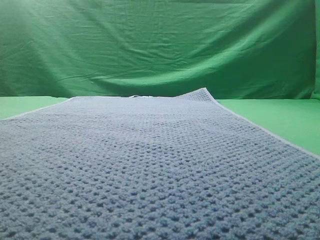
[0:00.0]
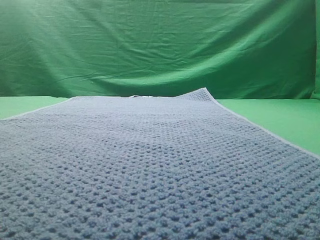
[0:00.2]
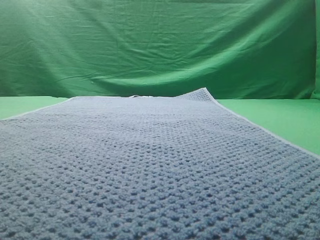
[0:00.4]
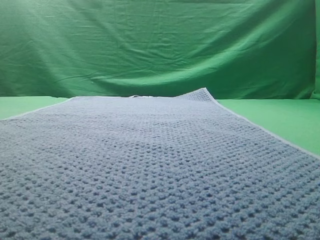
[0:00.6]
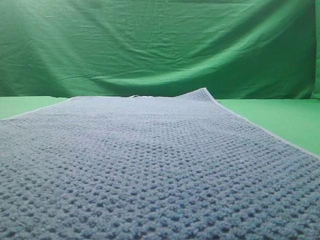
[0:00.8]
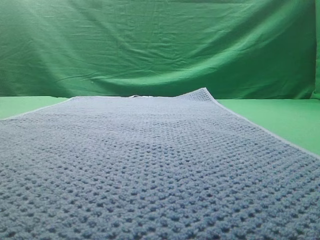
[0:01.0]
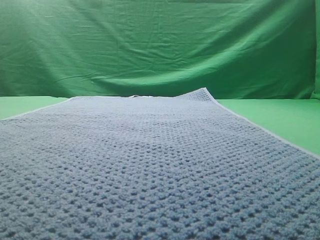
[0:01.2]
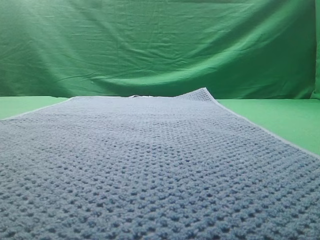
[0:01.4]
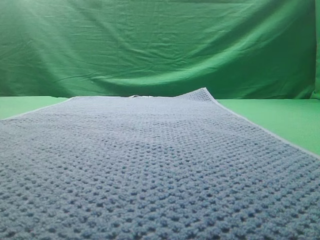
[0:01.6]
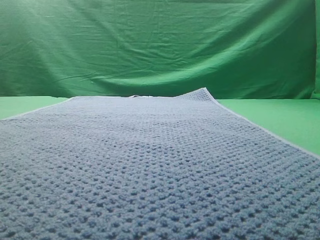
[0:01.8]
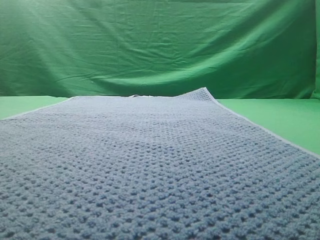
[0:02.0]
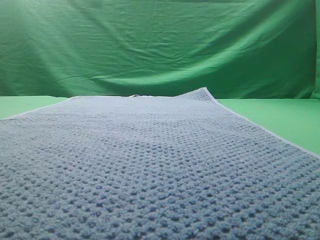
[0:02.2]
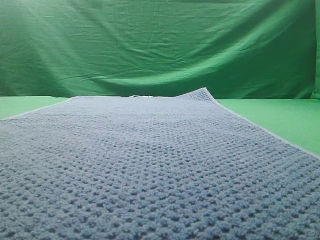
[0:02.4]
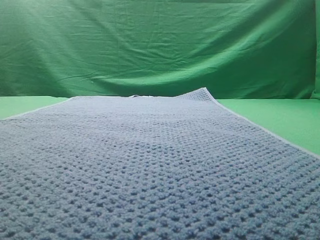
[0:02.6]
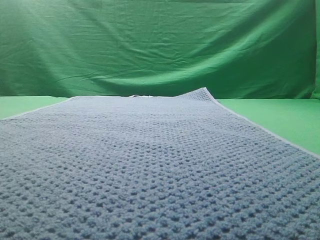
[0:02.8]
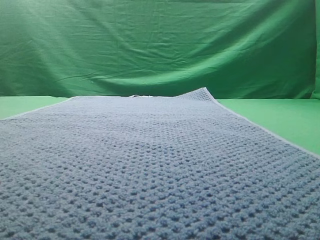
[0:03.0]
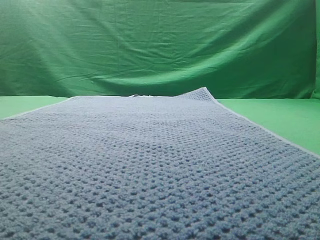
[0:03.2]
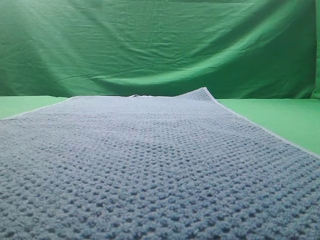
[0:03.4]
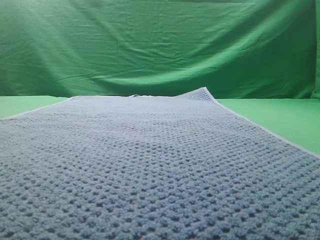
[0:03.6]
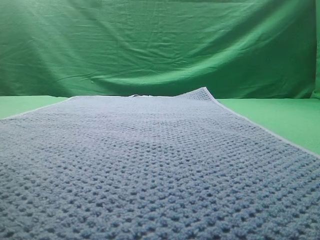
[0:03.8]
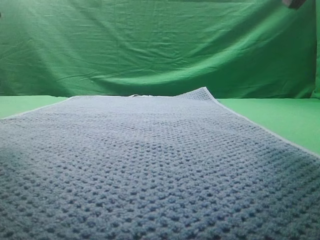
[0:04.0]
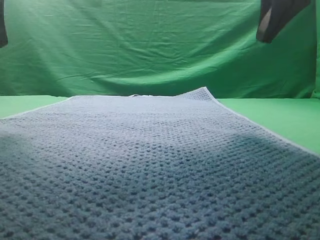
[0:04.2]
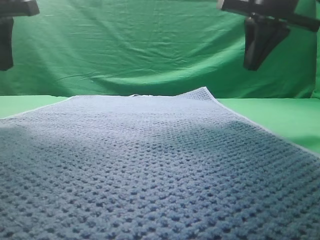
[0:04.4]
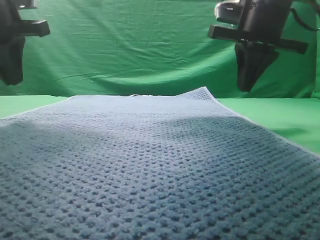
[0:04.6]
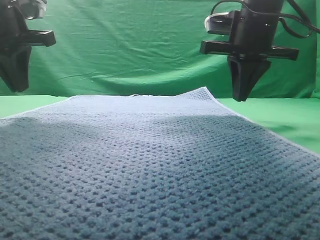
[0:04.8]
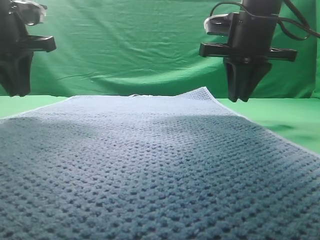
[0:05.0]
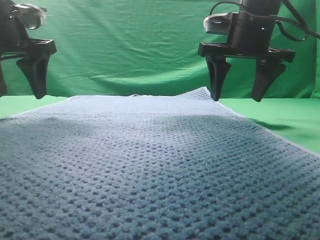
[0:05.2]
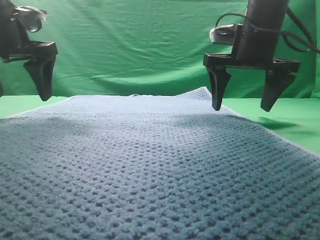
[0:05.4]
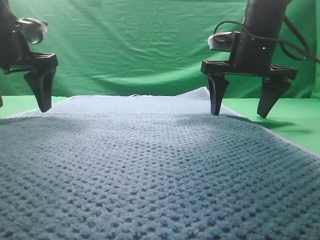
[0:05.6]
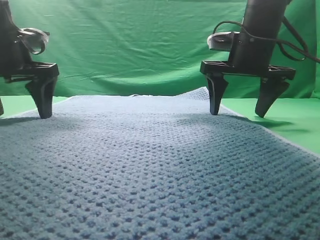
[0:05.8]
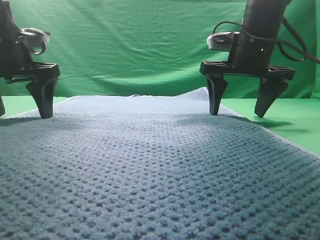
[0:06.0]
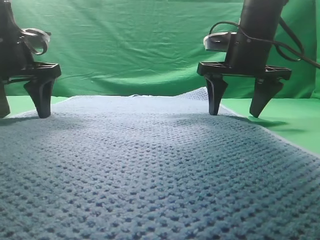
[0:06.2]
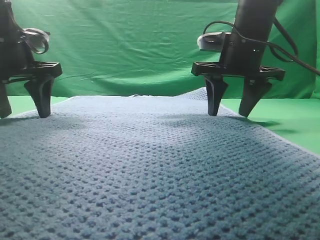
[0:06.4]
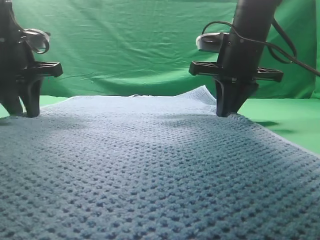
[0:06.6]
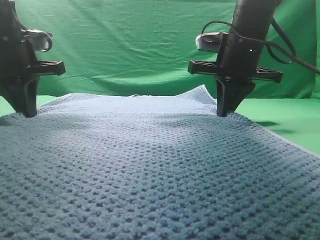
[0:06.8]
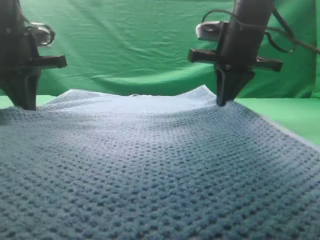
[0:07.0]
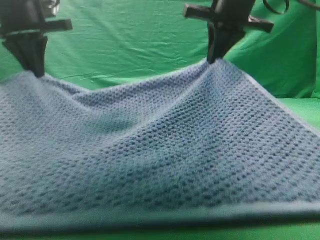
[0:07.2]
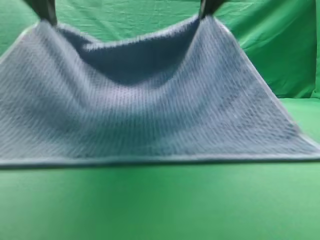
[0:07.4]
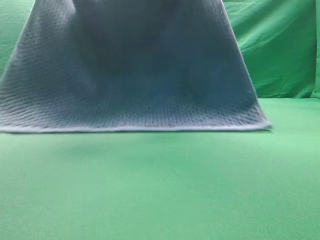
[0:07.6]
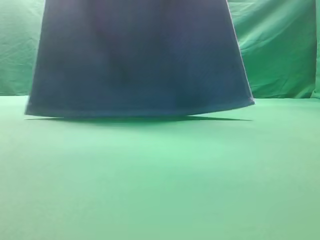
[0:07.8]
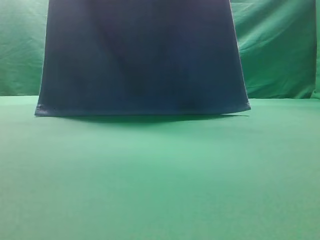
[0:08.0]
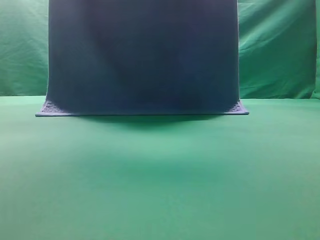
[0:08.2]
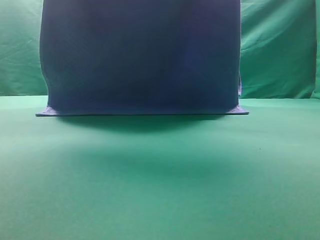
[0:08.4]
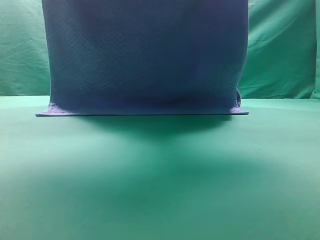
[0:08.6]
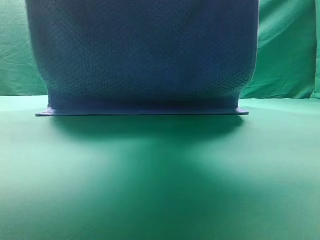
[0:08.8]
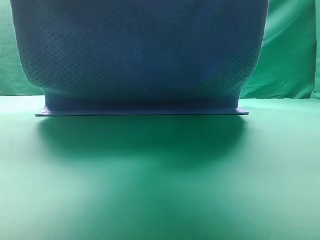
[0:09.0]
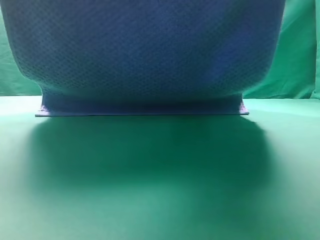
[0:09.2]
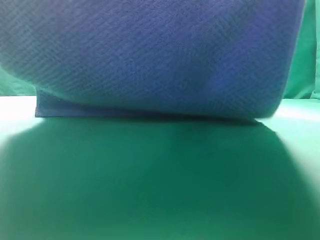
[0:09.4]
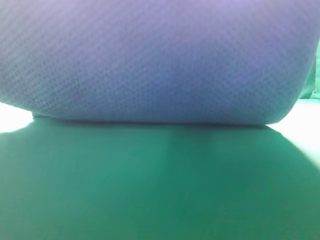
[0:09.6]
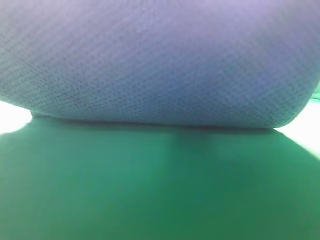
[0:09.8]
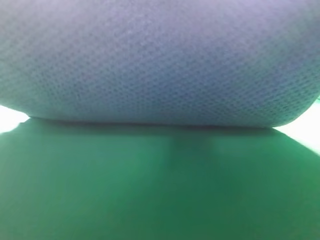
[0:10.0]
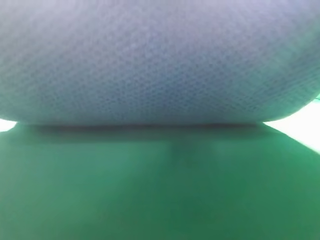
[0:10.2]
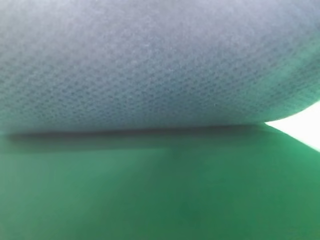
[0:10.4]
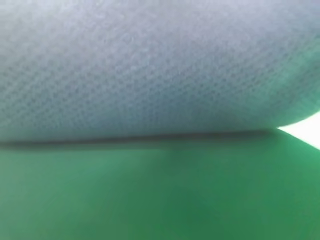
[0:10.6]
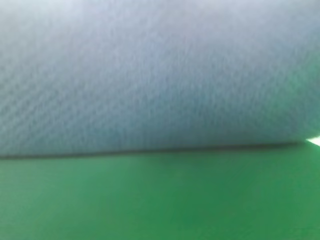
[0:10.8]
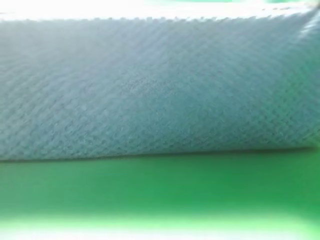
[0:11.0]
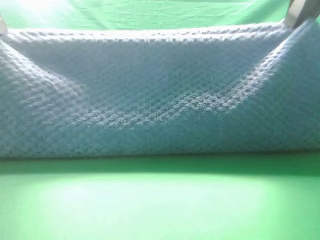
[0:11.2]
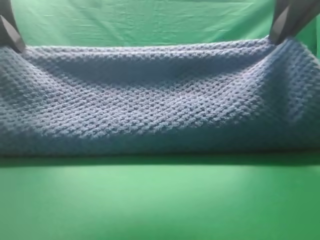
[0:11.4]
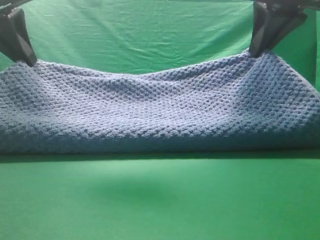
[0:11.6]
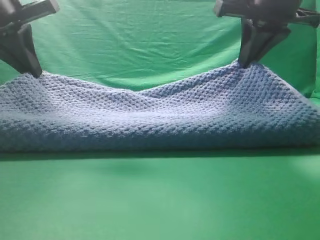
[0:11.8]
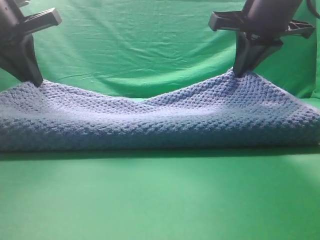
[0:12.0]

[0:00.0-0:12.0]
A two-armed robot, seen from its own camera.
Task of the whole recording: fold the towel on the table twice.
Step, 0:00.0 to 0:07.8: pick up the towel with two arm.
